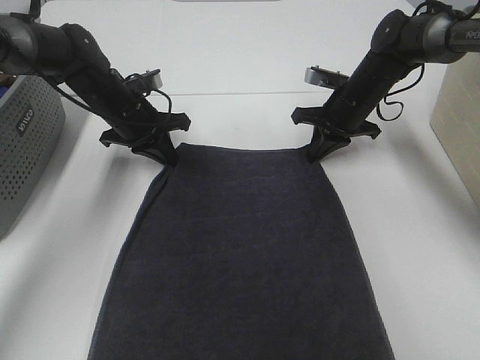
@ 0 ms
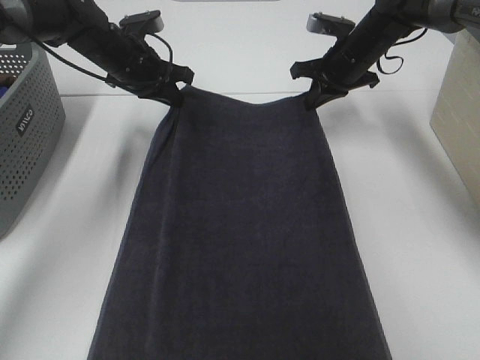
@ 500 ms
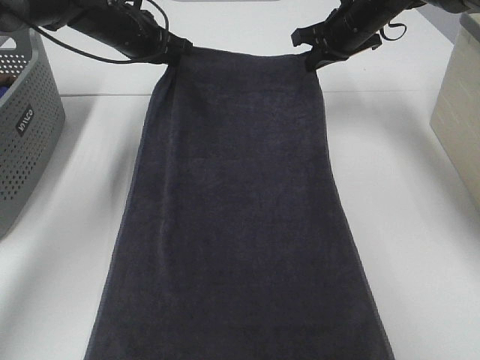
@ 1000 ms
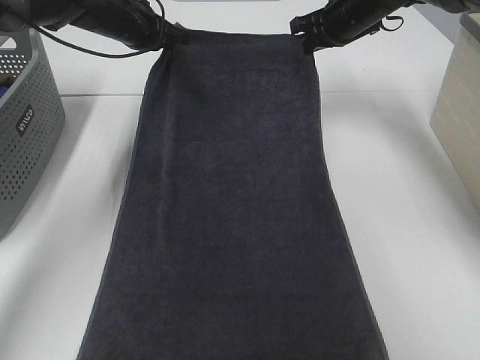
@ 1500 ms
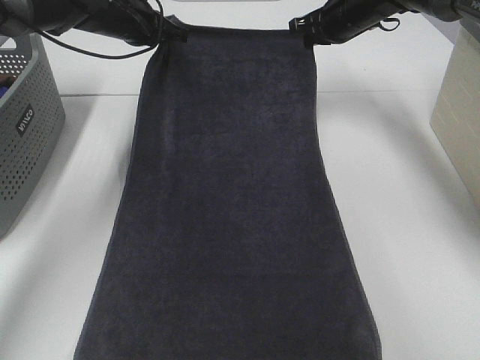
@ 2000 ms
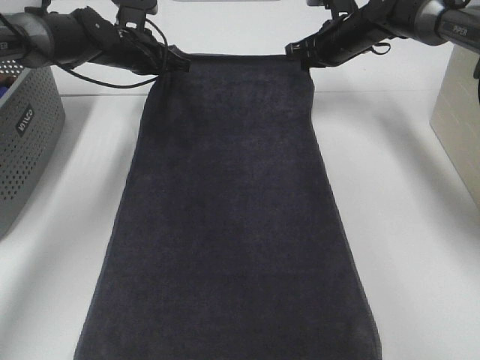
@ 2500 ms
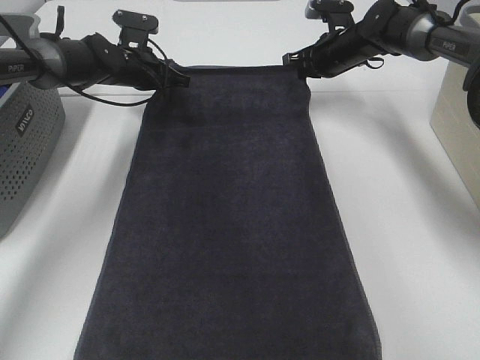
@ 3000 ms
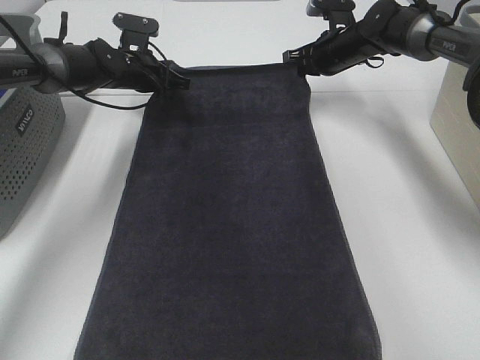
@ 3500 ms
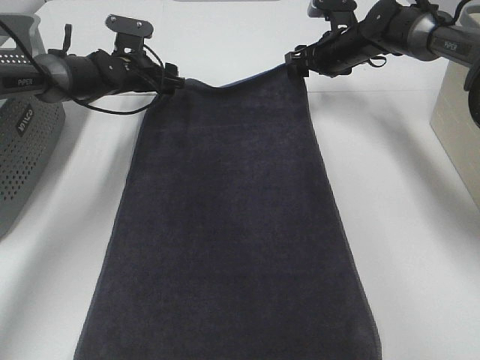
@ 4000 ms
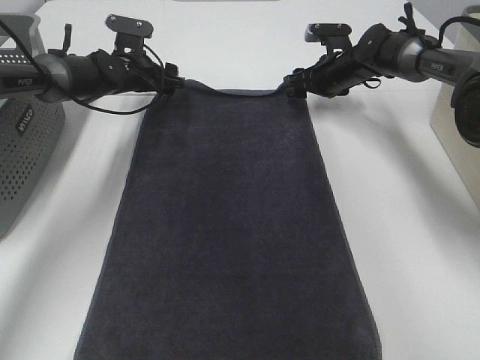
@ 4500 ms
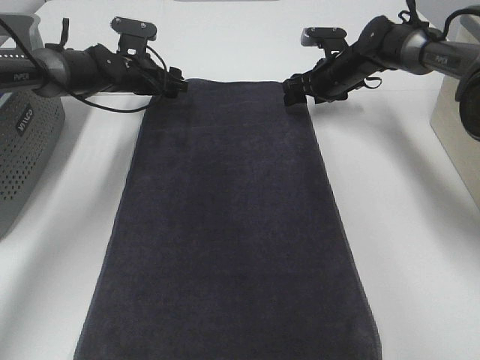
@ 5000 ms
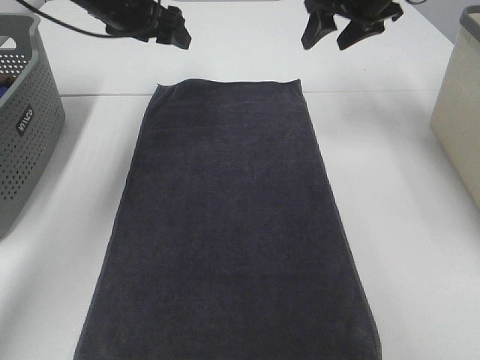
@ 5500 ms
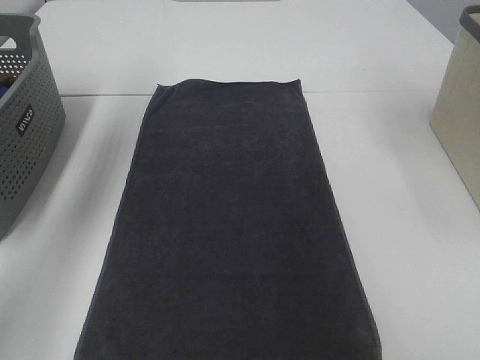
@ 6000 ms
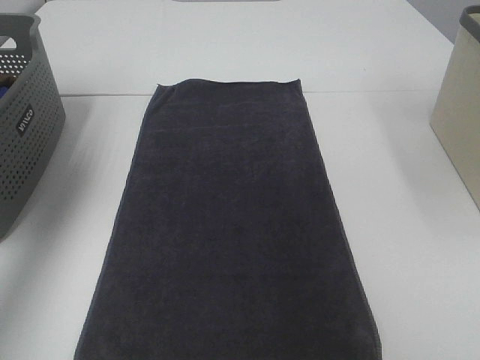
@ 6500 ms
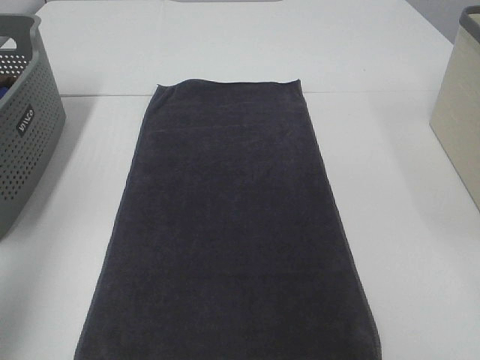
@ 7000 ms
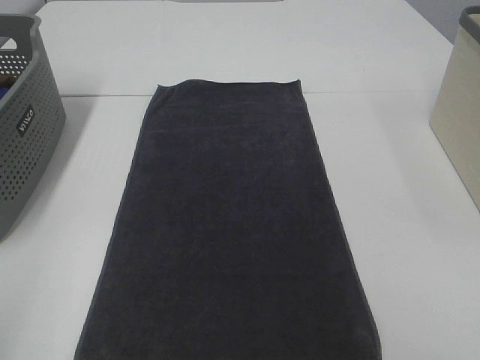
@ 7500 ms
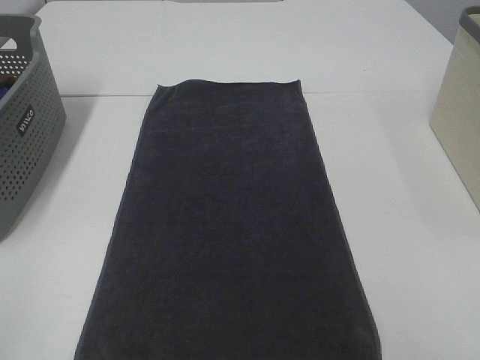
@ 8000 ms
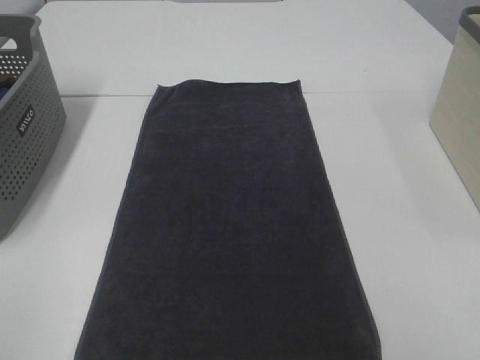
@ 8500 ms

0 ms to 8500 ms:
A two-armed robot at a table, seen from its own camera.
Task of the whole recording: Remove the towel and place it.
0 ms to 2000 ms: Both grippers move upward and forward, about 10 cm.
2000 ms to 4000 ms: The left gripper goes roughly 10 cm downward, and opens; the right gripper shifts some 5 cm downward, and opens its fingers.
4000 ms to 6500 ms: The right gripper moves upward and backward, approximately 35 cm. Meanwhile the left gripper shifts roughly 40 cm upward, backward and to the left.
6500 ms to 8500 ms: The left gripper is displaced backward by roughly 35 cm.

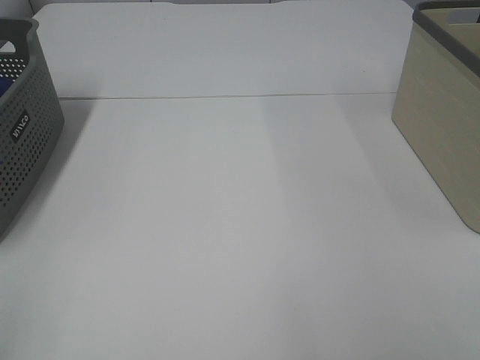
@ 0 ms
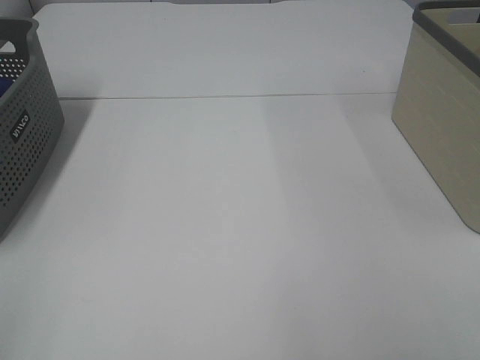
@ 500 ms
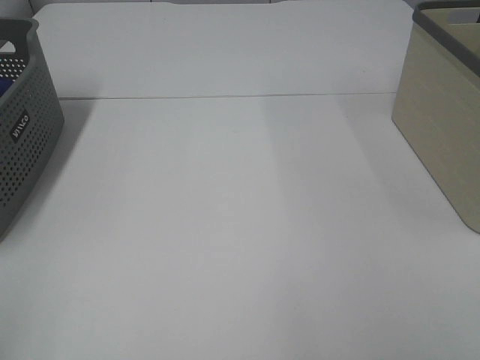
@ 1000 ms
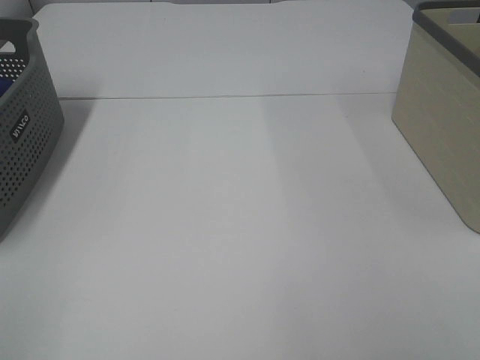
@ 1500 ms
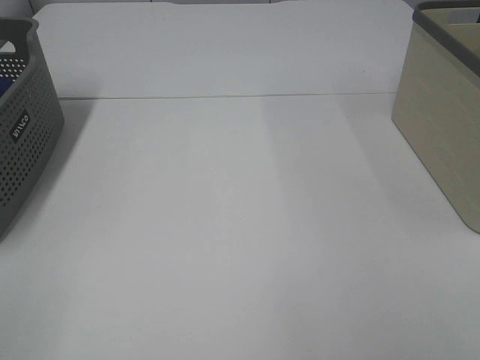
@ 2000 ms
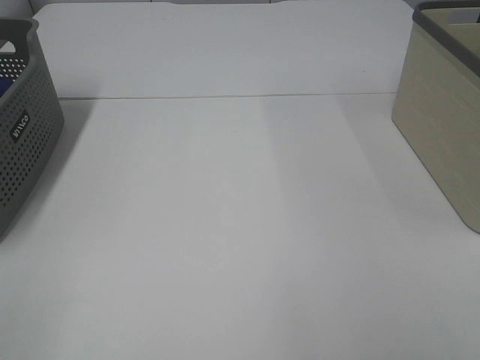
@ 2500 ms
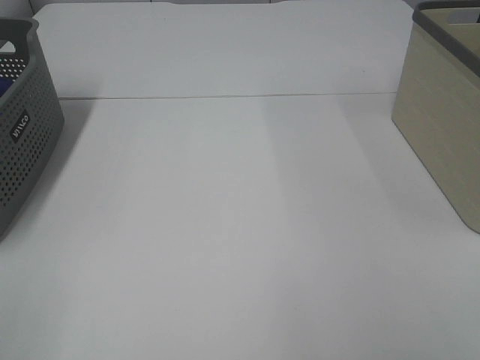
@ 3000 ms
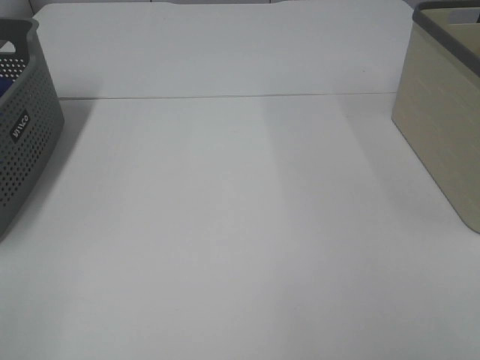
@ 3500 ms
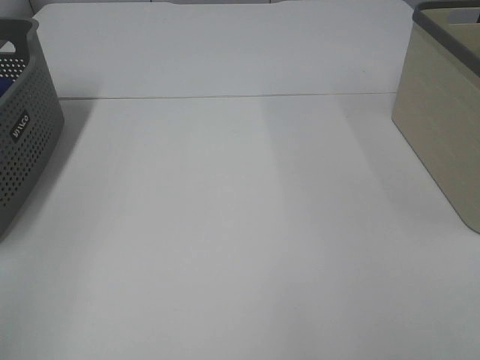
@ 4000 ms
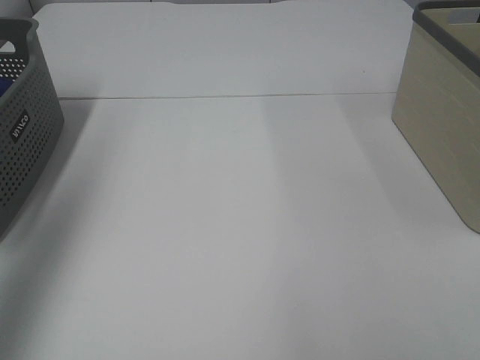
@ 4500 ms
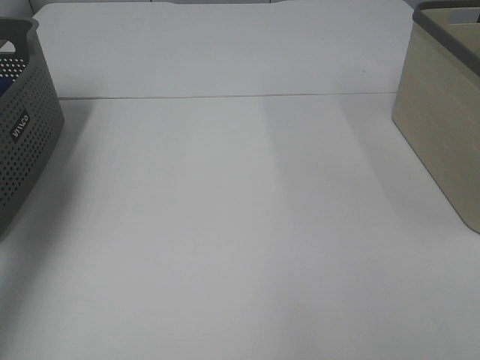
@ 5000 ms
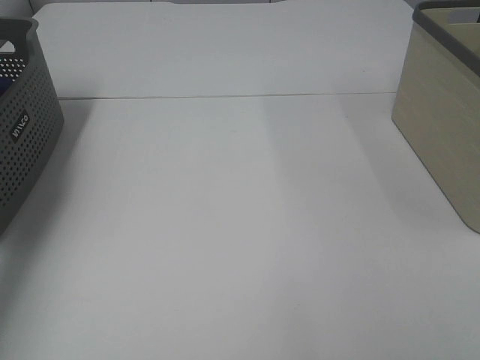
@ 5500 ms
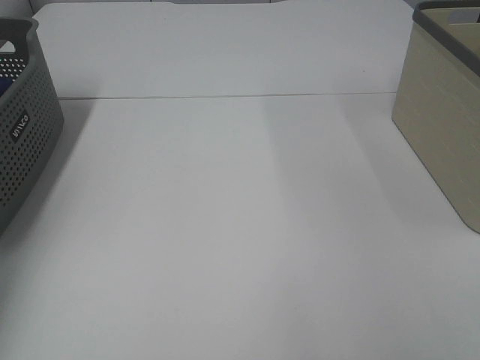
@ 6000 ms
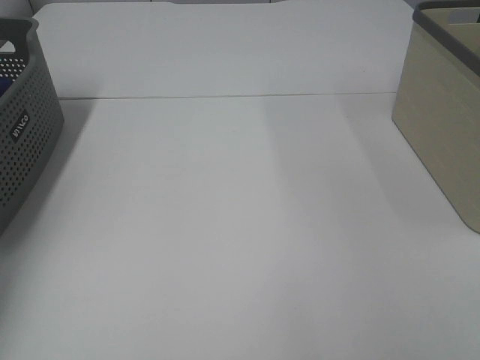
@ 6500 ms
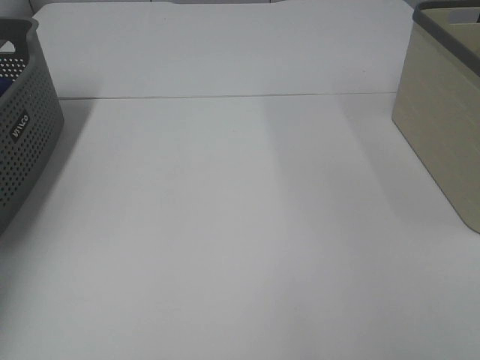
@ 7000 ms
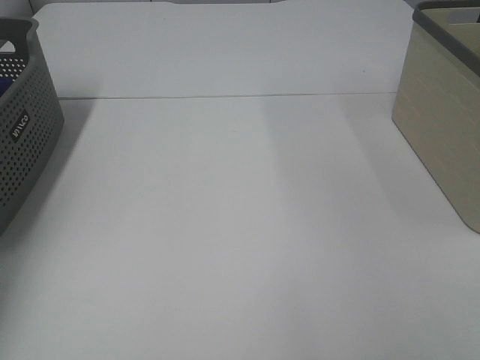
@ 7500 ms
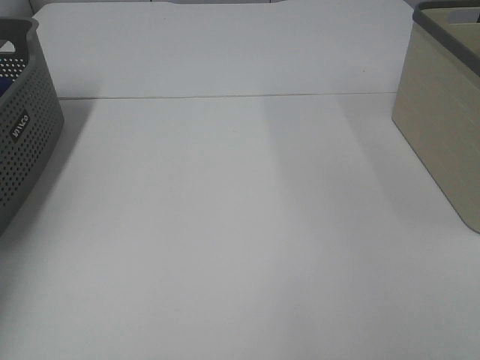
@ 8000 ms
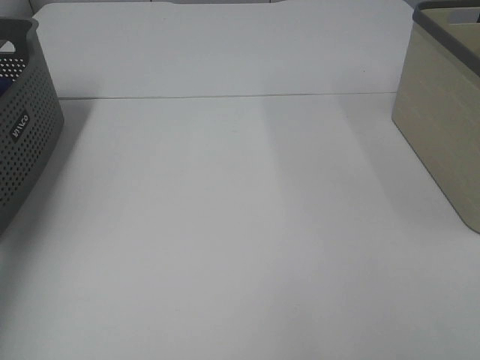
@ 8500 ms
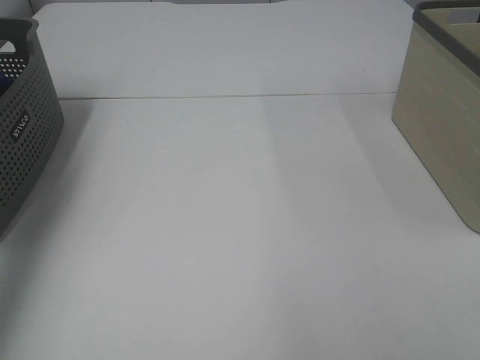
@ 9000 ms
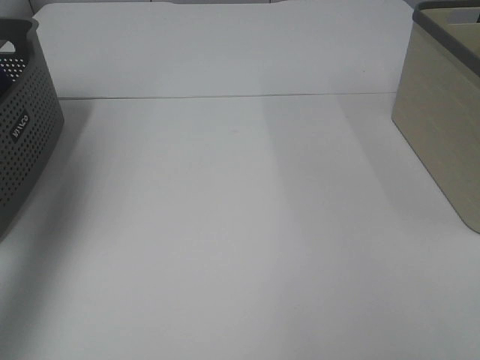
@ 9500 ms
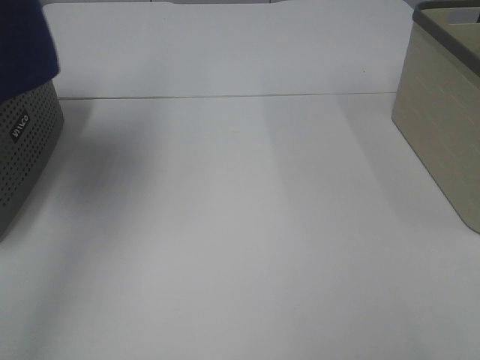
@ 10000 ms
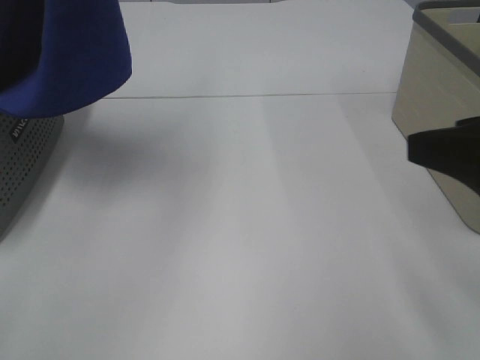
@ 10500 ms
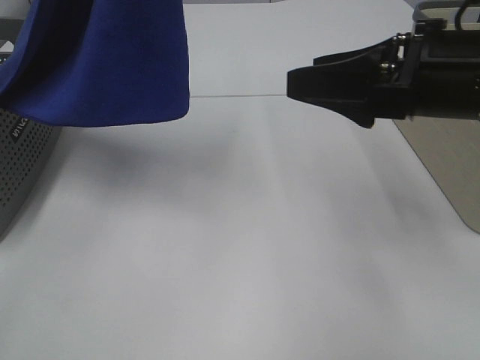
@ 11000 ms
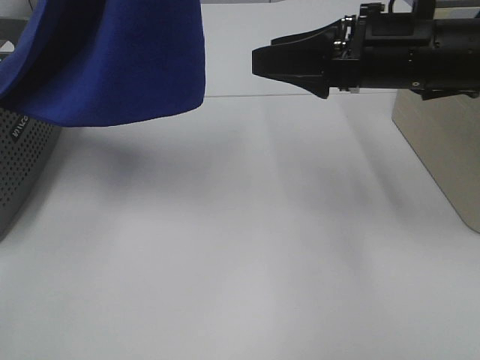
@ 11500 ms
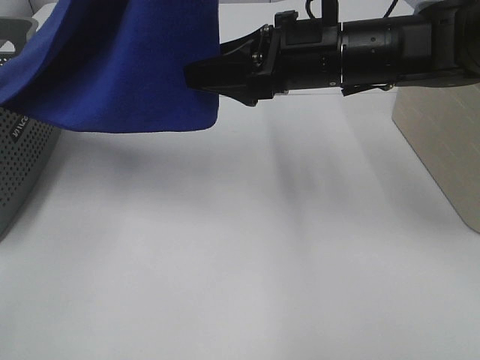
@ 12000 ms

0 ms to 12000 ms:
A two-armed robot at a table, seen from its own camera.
Task of the whole recording: Remove the towel and place it.
4000 ms to 6000 ms: The left gripper moves forward and downward, about 40 cm.
8000 ms to 10000 ms: The left gripper is displaced upward and to the right by about 40 cm.
10000 ms to 12000 ms: The right gripper shifts roughly 35 cm forward and to the left. Meanwhile the left gripper moves to the right, some 15 cm.

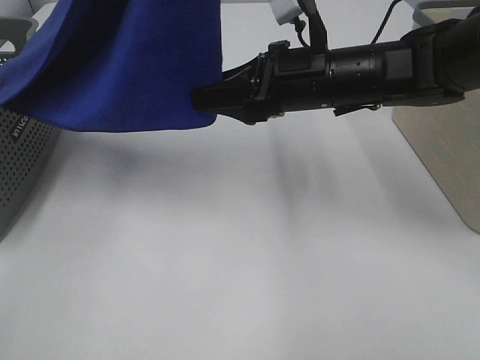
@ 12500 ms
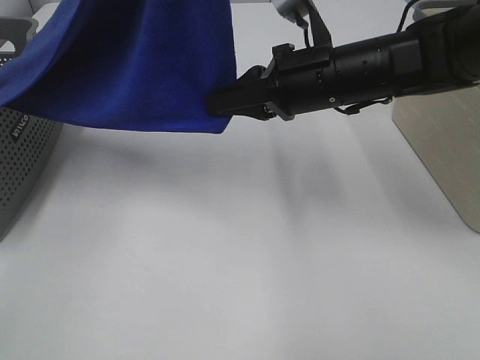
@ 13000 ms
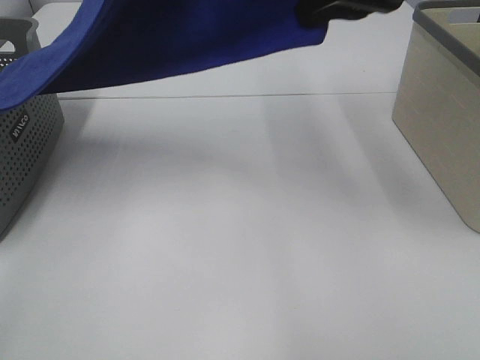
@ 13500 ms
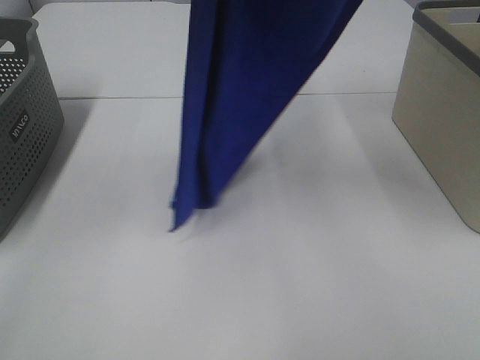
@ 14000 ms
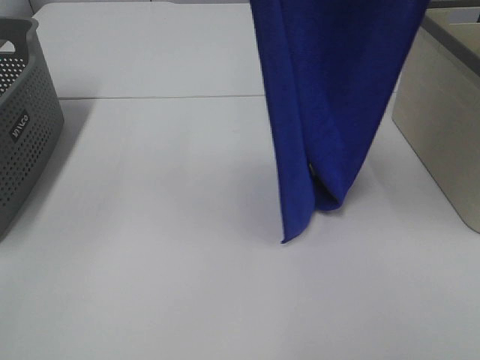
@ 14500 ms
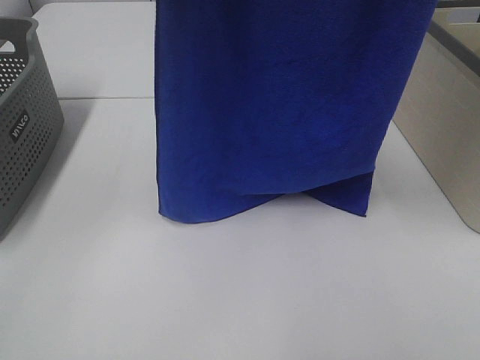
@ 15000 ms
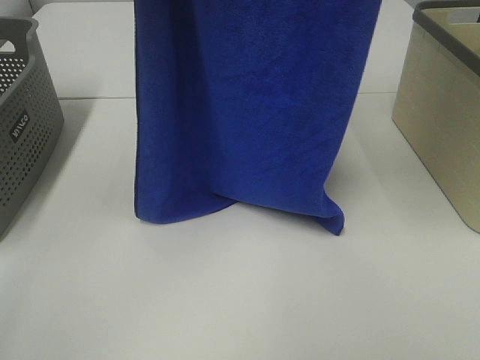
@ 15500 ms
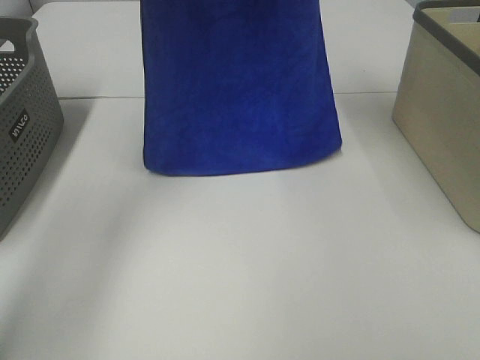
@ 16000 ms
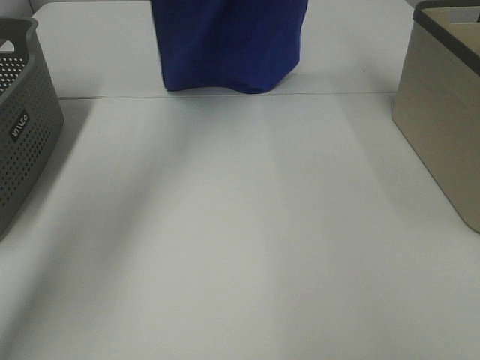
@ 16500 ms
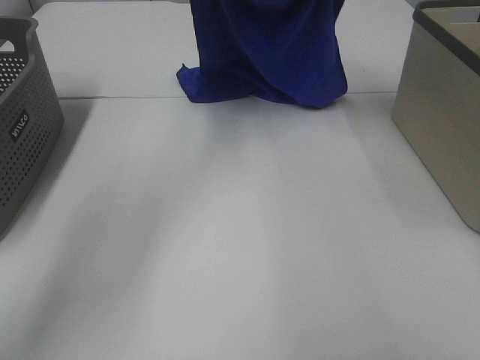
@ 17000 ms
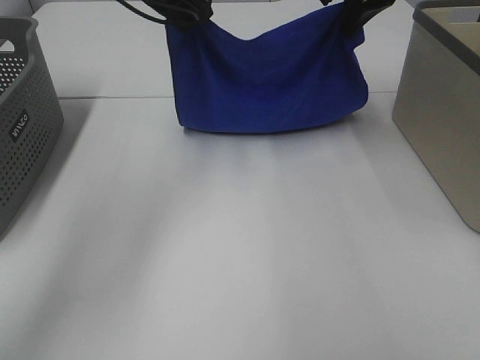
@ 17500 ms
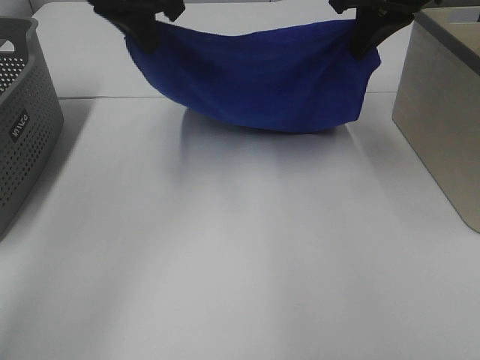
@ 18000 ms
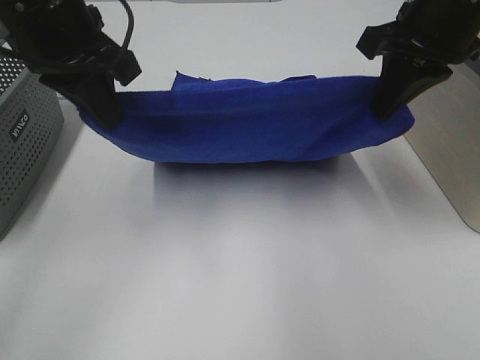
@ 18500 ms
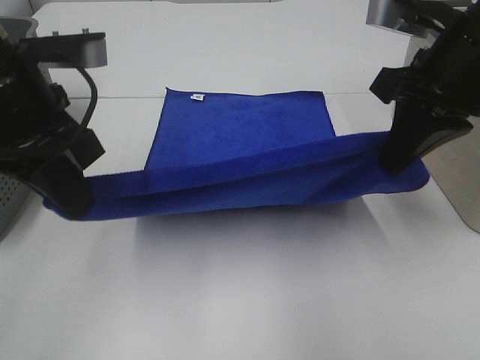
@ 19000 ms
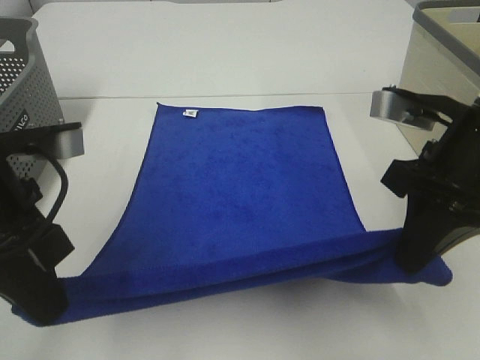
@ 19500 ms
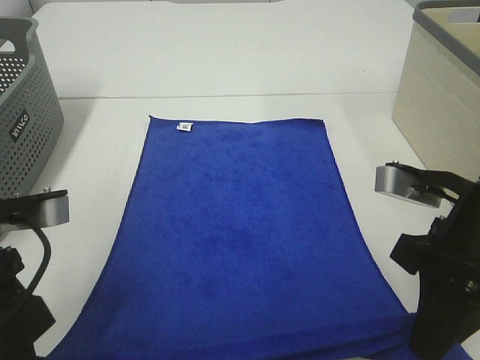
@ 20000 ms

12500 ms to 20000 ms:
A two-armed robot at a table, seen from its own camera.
Task of the whole recording: Remove the towel and place it.
Step, 13000 ms to 17500 ms: Right hand: spread the blue towel flat on the table.
Step, 13000 ms to 18500 ms: Left hand: spread the blue towel flat on the table.
12500 ms to 14500 ms: The right gripper moves upward, some 30 cm, and closes up.
14500 ms to 16500 ms: The right gripper heads forward, covering approximately 25 cm. The left gripper shifts some 25 cm forward and downward.
16500 ms to 18000 ms: The left gripper heads backward and downward, covering about 15 cm. The right gripper is displaced downward and backward by approximately 15 cm.
18000 ms to 20000 ms: The grippers both shift backward and downward by roughly 25 cm.
